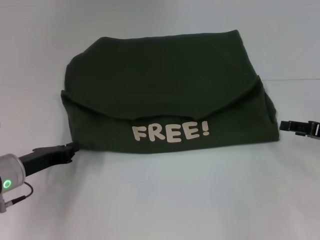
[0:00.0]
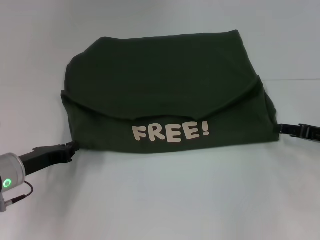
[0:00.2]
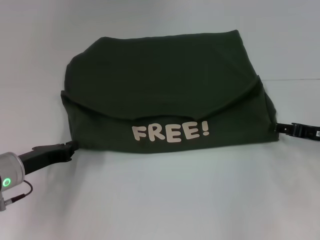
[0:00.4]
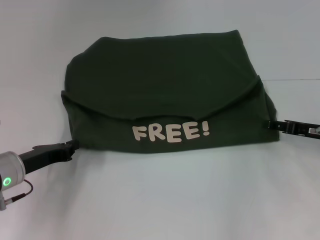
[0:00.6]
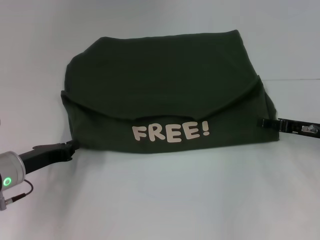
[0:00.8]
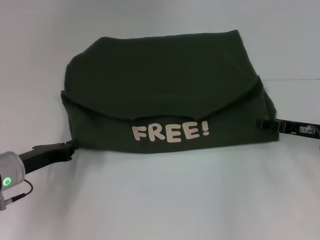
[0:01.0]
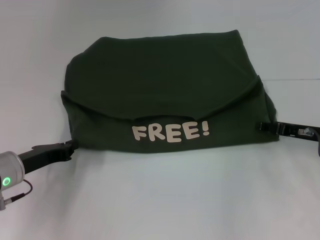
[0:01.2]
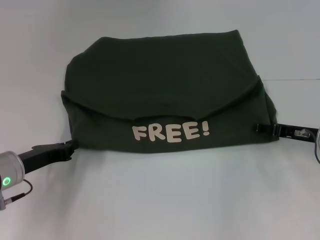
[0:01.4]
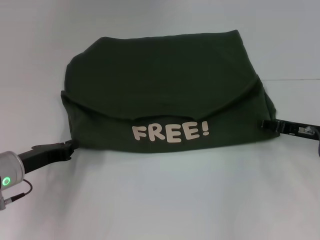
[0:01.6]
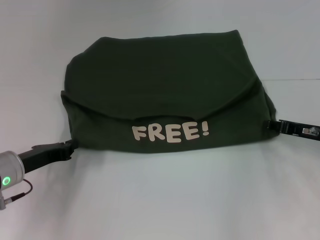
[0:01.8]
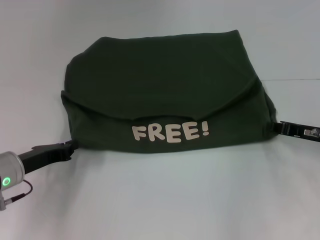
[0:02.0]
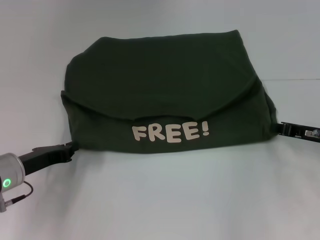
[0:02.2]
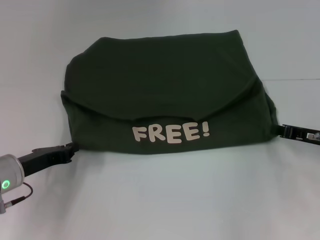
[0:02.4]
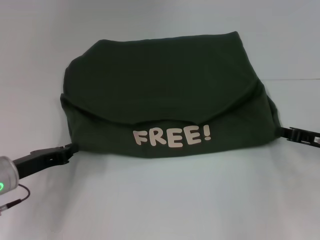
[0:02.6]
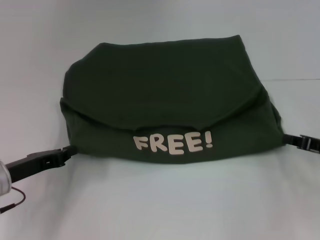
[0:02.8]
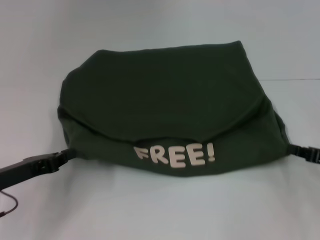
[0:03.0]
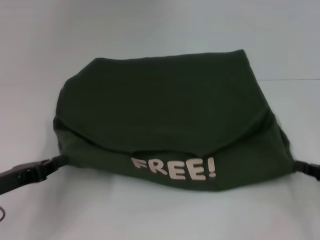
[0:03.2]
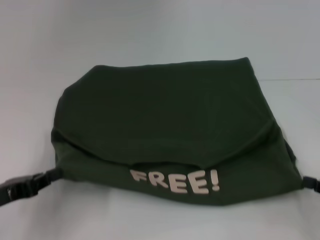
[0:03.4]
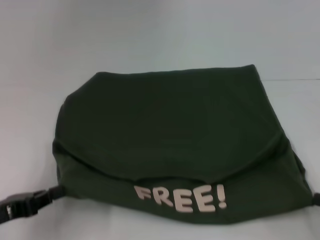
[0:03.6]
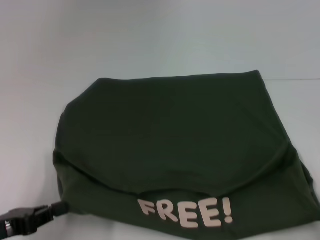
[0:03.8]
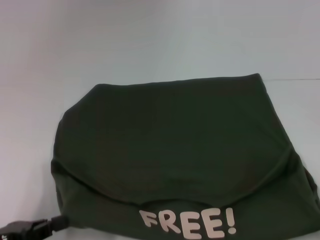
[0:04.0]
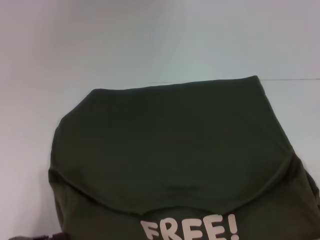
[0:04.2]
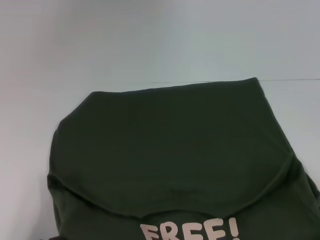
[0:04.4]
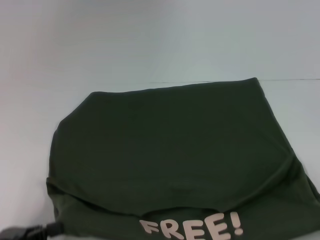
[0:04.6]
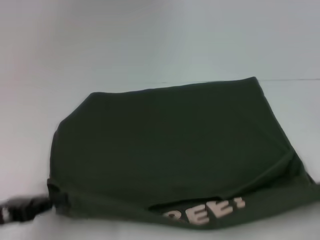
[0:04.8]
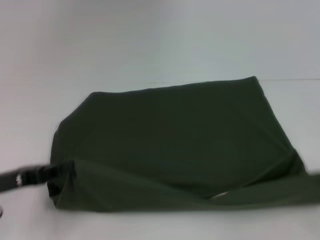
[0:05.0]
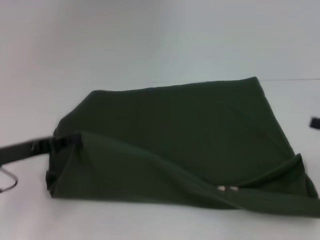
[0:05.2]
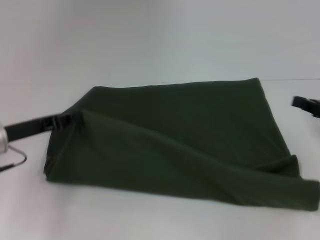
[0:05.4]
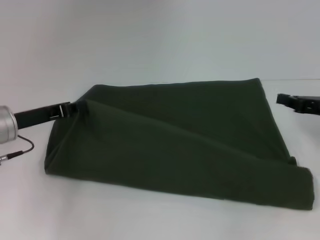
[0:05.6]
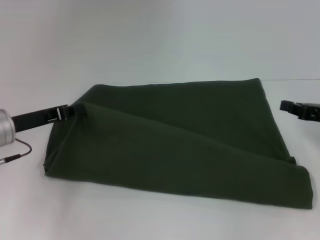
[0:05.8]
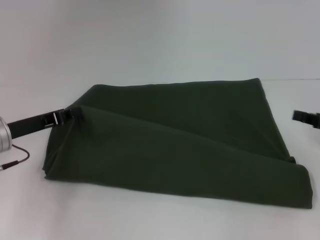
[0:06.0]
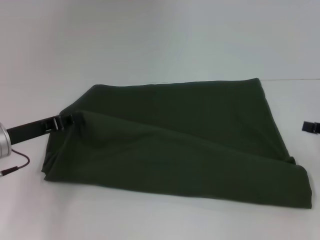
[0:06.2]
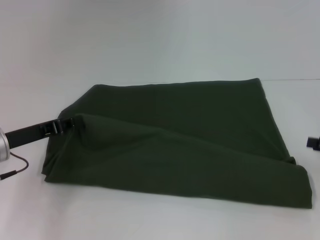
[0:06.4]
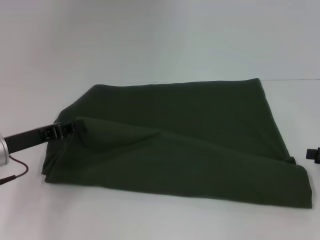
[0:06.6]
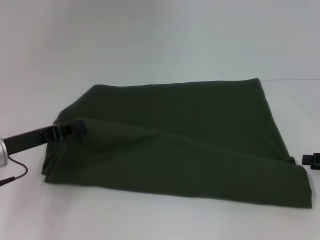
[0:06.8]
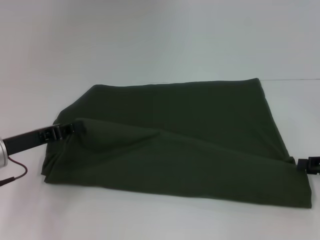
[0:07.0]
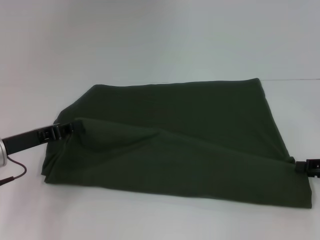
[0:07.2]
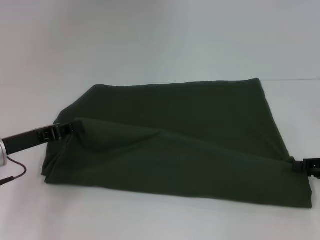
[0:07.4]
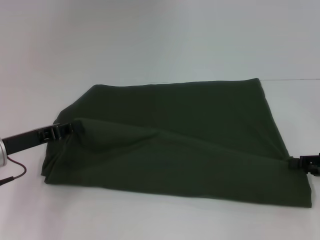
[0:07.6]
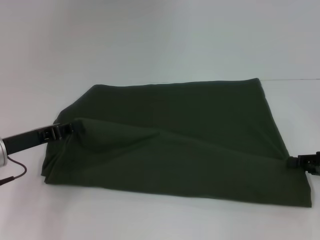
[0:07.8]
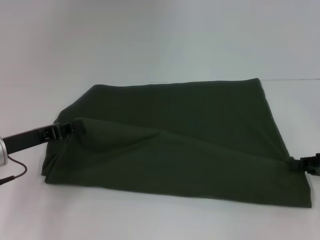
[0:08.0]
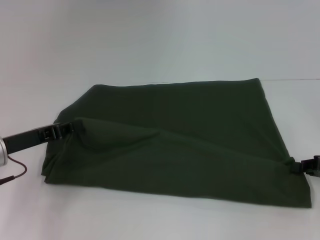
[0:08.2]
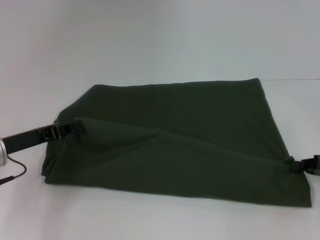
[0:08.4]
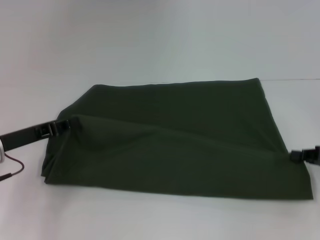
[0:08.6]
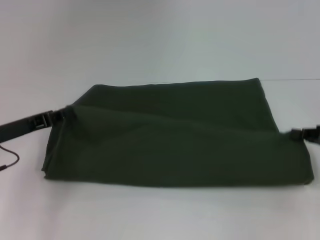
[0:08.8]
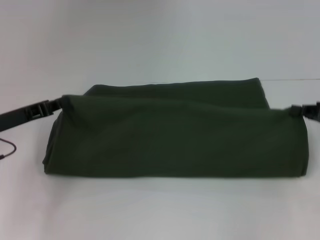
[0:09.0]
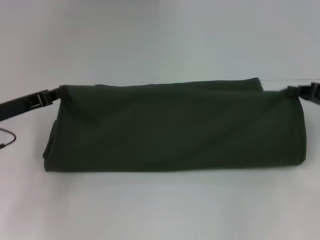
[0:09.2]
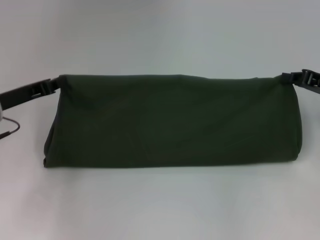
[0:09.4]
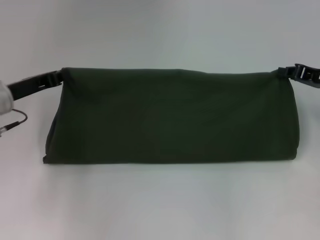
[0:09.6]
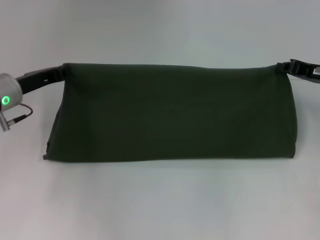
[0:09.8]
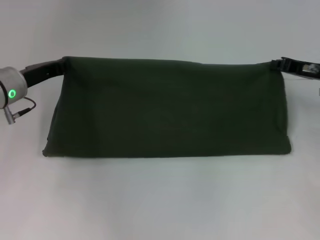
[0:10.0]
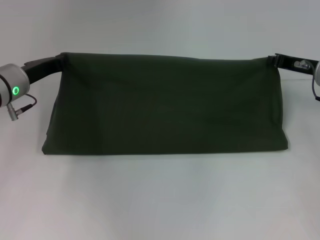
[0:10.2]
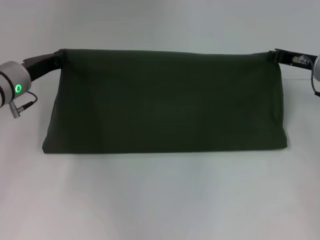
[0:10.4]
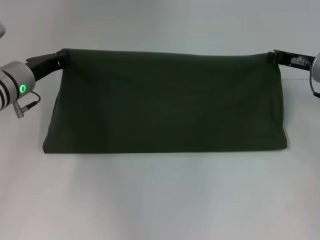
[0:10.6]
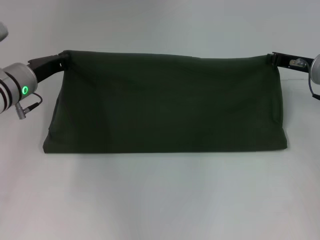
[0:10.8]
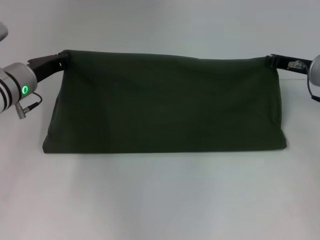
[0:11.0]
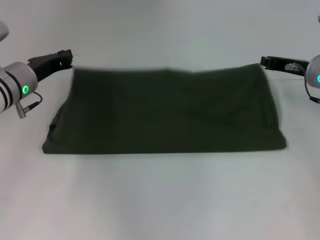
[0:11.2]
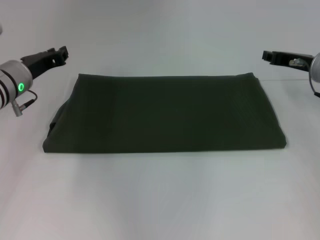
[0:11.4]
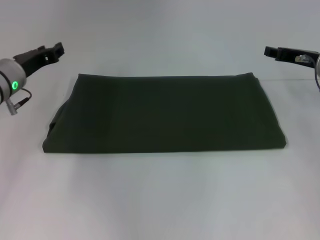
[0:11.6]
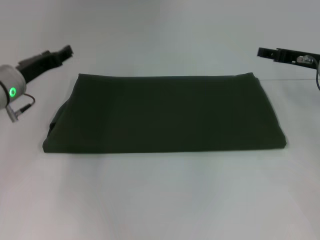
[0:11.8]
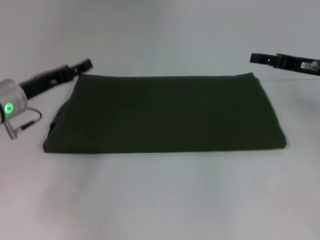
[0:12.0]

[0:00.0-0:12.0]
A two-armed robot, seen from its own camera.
Step, 0:00.0 to 0:04.2: Pull the clothes with your left hand.
Step, 0:00.0 to 0:04.2: Pull the clothes with your right hand.
Step, 0:04.4 to 0:11.8: Fold the clothes with your right hand.
0:00.0 to 0:01.6: The right gripper moves to the left, about 5 cm.
0:01.6 to 0:03.0: The right gripper travels backward by about 5 cm, and closes its fingers.
0:03.0 to 0:04.4: The two grippers go about 15 cm backward.
0:04.4 to 0:06.0: The grippers both shift forward by about 20 cm.
0:07.6 to 0:09.0: The right gripper changes place by roughly 5 cm, and closes its fingers.
0:09.0 to 0:10.4: The right gripper moves forward and to the left, roughly 15 cm. Meanwhile the left gripper travels forward by about 10 cm.
0:10.4 to 0:12.0: The left gripper opens its fingers; the right gripper opens up.

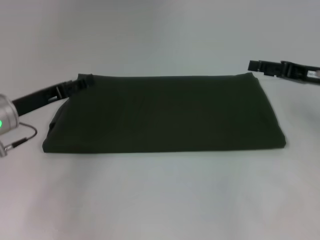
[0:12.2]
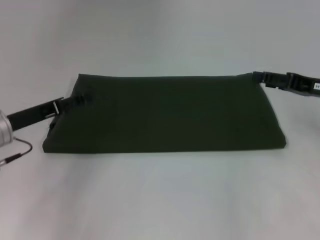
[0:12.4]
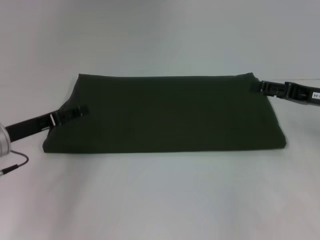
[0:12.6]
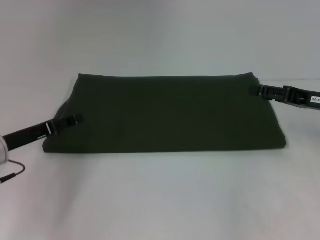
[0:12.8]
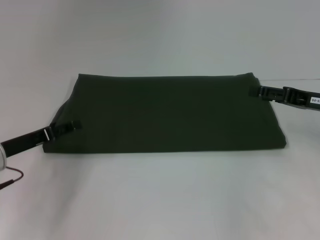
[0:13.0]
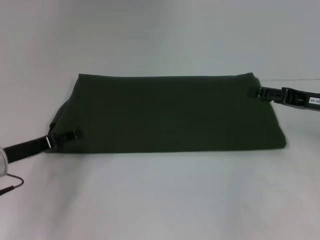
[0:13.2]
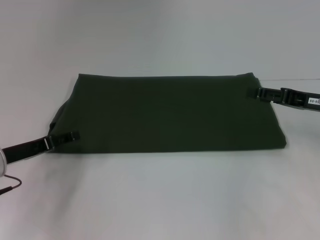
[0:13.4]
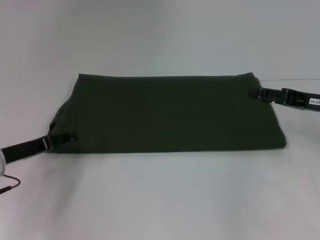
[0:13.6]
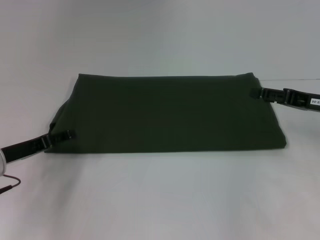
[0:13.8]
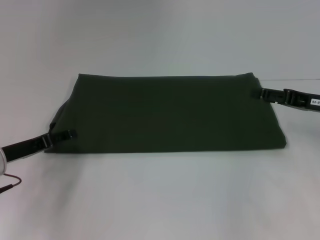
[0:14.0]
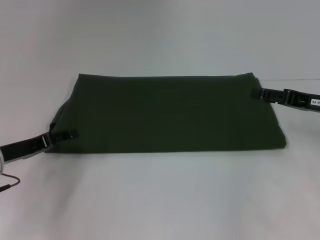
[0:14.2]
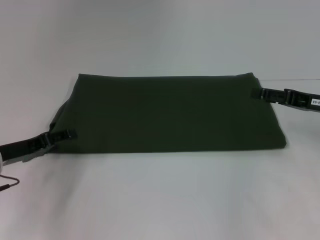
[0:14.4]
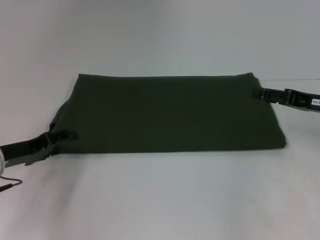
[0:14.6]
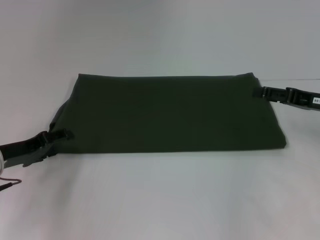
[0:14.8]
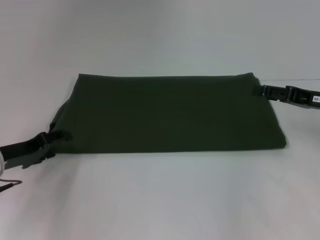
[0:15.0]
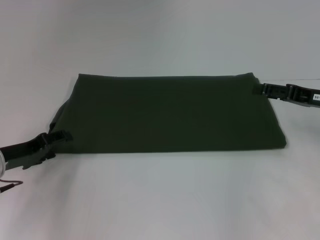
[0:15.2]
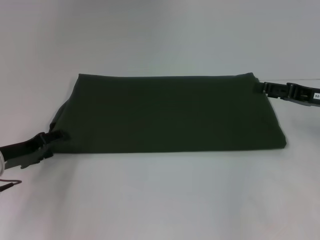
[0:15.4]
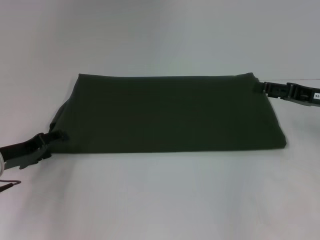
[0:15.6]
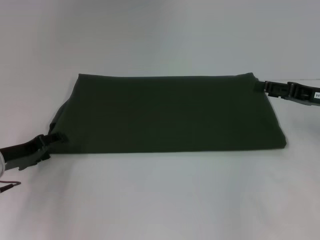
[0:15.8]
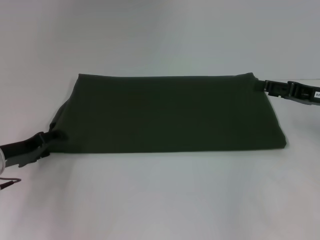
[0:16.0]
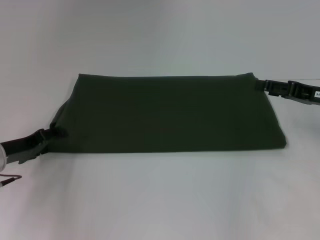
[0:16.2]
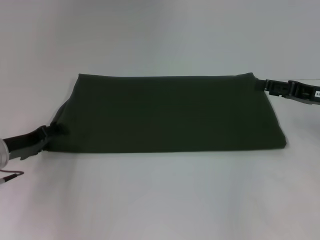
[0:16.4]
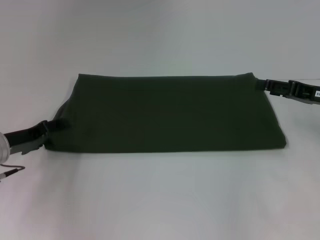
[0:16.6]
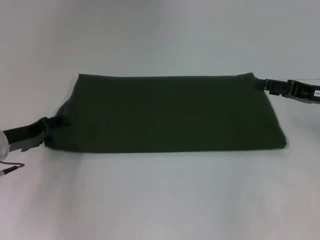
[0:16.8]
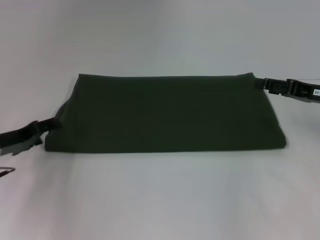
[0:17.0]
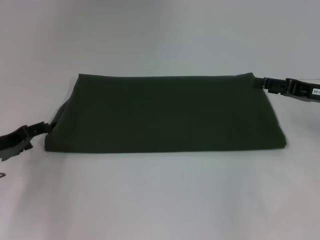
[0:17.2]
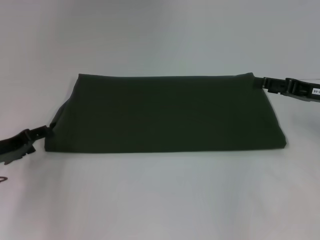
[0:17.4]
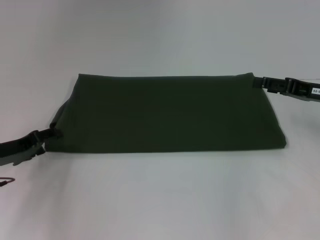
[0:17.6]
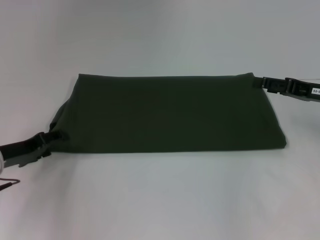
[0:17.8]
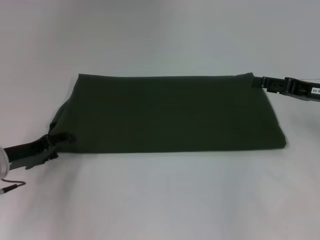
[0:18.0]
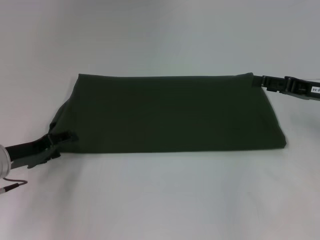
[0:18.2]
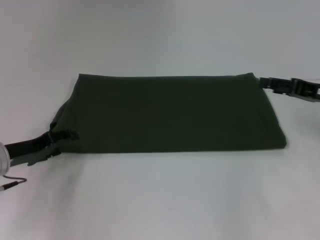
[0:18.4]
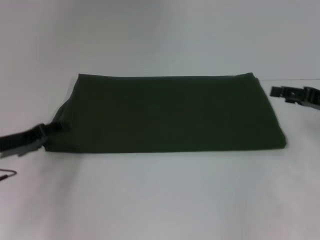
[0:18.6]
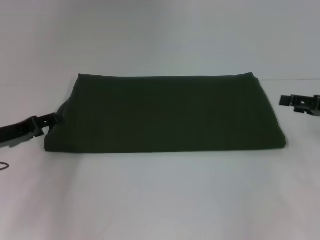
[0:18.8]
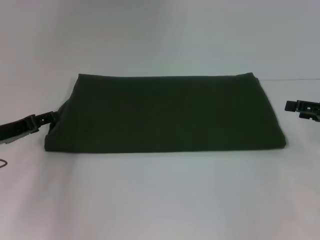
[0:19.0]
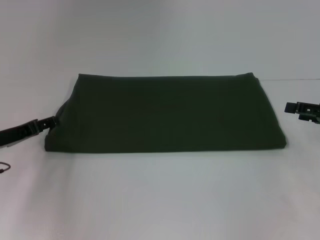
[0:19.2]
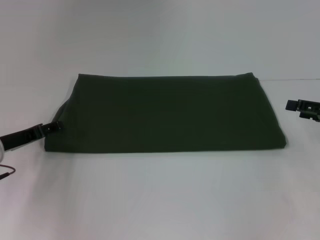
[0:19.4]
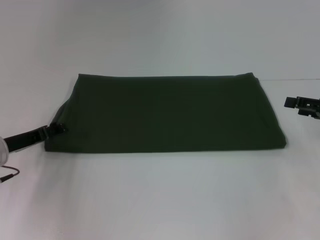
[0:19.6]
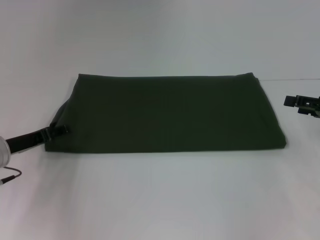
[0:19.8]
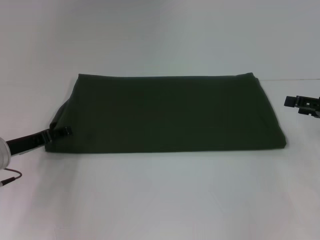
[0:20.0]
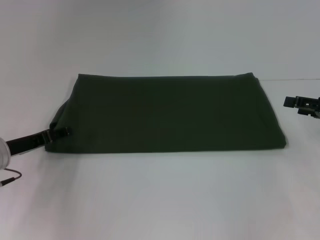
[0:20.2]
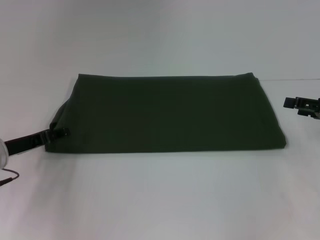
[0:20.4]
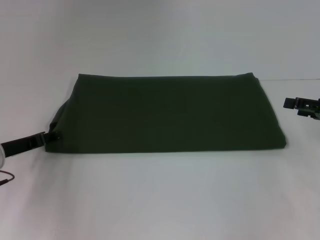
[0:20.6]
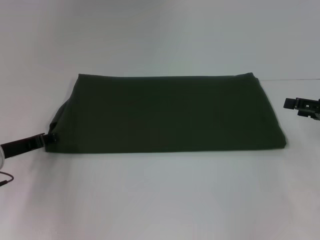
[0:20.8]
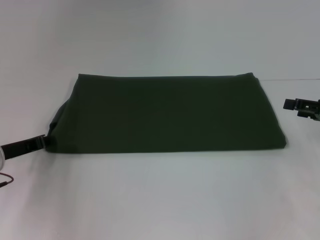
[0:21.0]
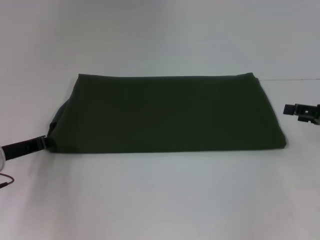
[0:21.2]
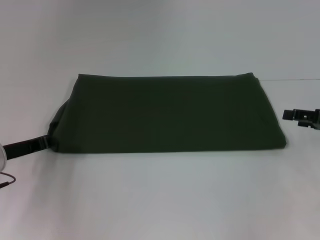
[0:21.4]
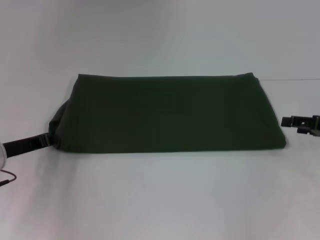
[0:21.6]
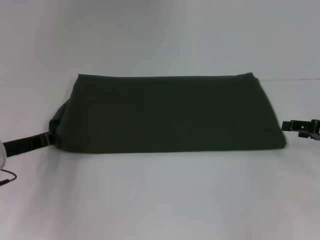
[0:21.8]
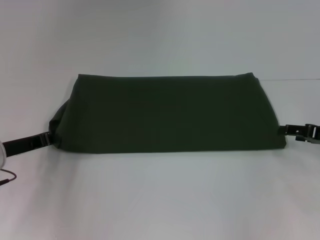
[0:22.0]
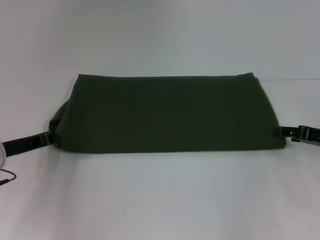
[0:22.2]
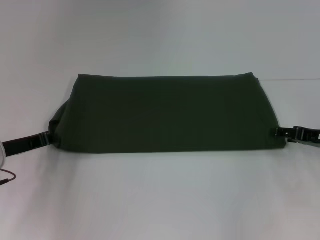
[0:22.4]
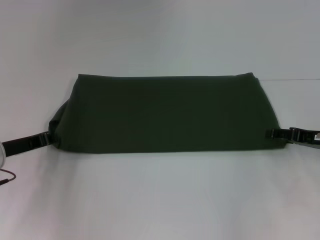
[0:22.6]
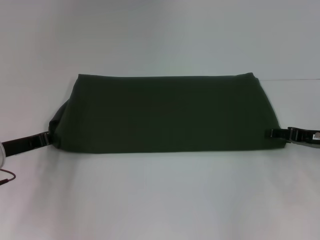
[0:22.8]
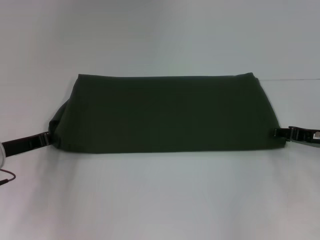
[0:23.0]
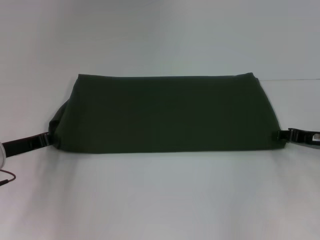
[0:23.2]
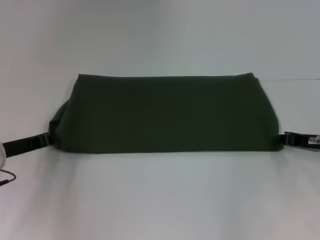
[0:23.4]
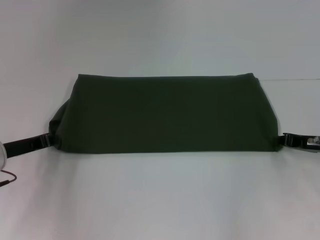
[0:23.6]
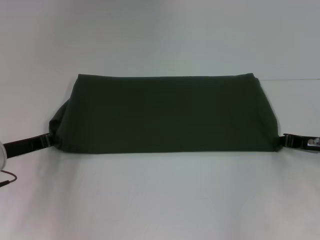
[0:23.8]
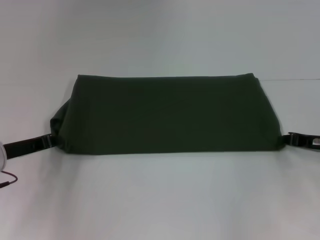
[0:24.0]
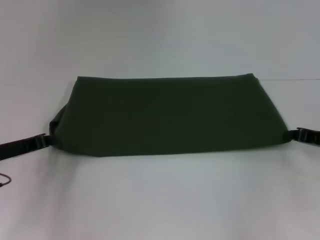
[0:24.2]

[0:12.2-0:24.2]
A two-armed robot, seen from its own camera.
0:12.2 to 0:13.8: The left gripper changes place by some 5 cm.
0:13.8 to 0:18.2: The grippers stay close to where they were, moving slightly.
0:18.2 to 0:19.8: The right gripper shifts by roughly 5 cm.
0:19.8 to 0:21.2: The left gripper closes up.
0:21.2 to 0:22.6: The right gripper changes place by roughly 5 cm.
0:22.6 to 0:24.2: The right gripper closes its fingers.
